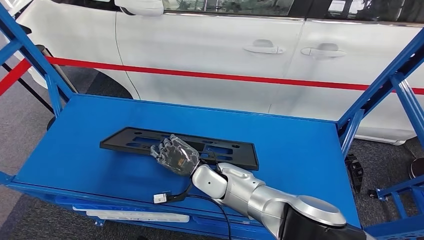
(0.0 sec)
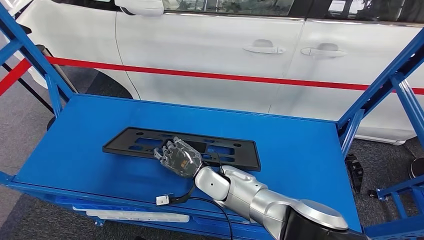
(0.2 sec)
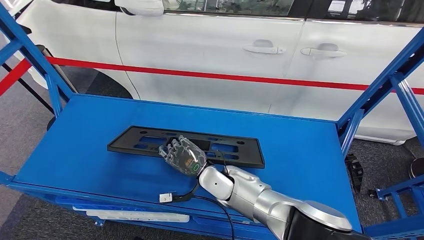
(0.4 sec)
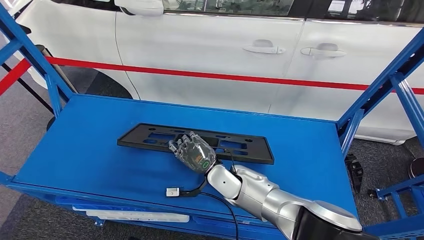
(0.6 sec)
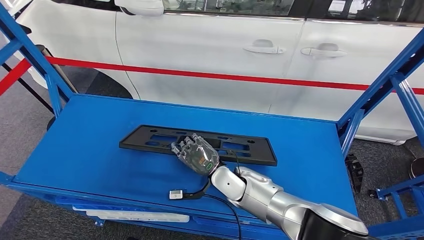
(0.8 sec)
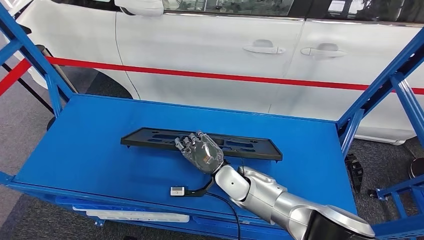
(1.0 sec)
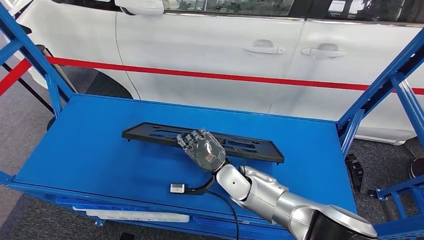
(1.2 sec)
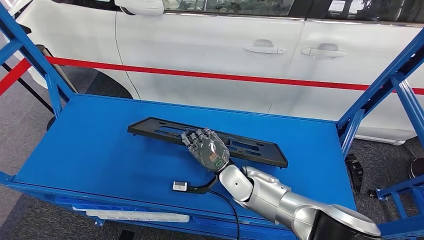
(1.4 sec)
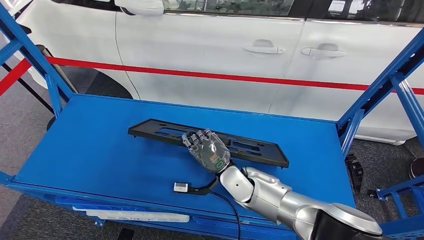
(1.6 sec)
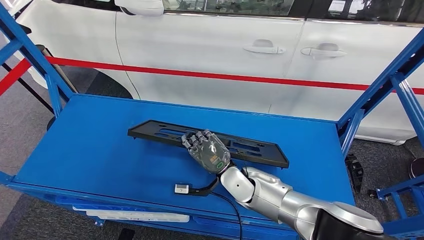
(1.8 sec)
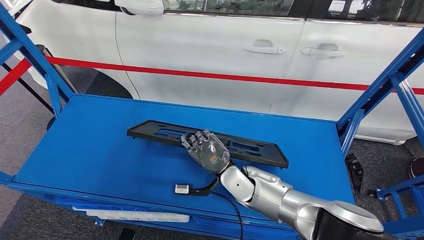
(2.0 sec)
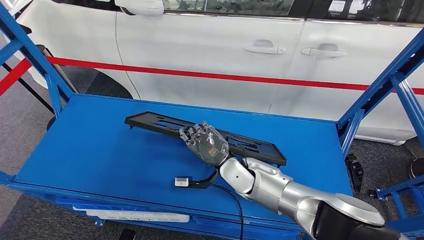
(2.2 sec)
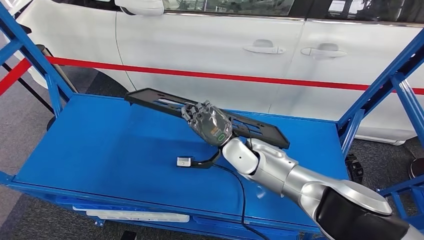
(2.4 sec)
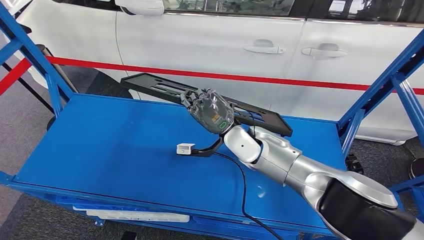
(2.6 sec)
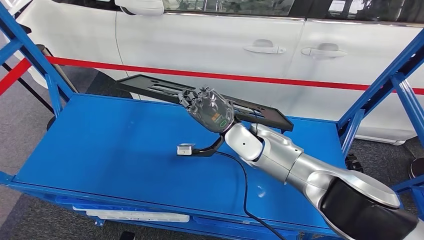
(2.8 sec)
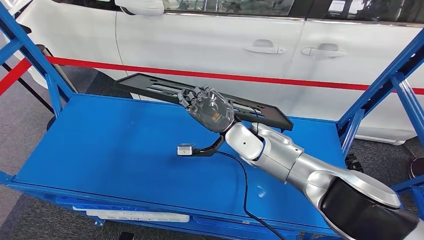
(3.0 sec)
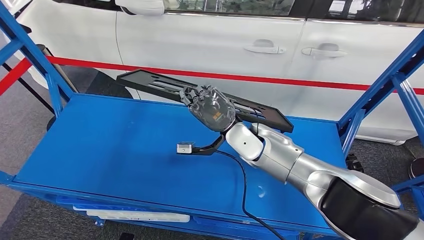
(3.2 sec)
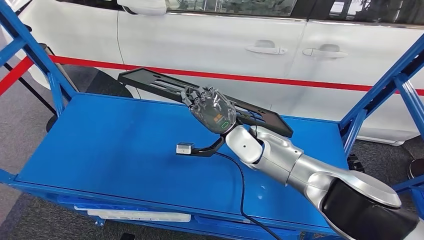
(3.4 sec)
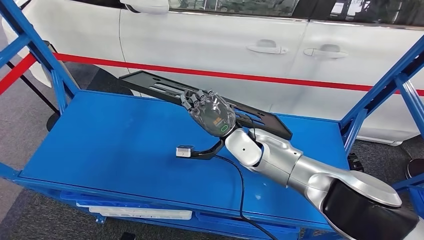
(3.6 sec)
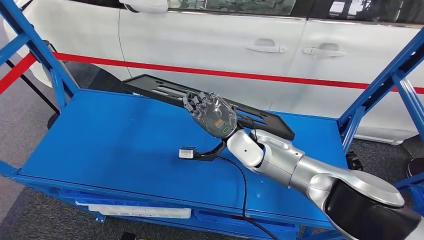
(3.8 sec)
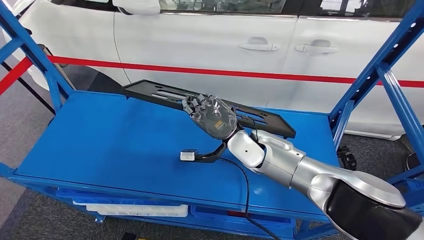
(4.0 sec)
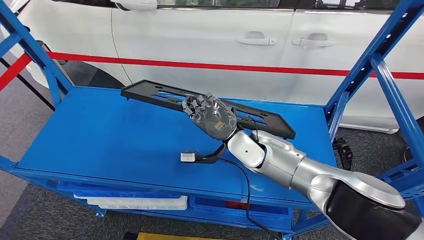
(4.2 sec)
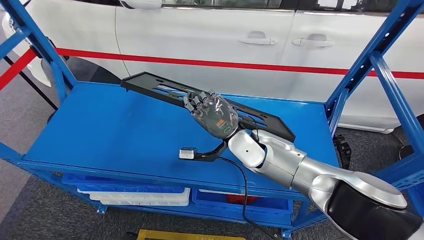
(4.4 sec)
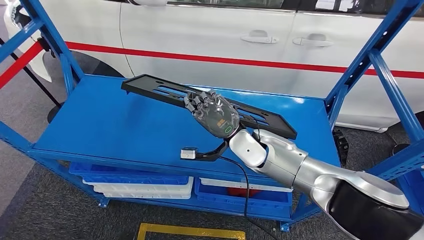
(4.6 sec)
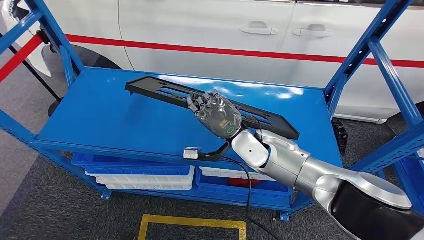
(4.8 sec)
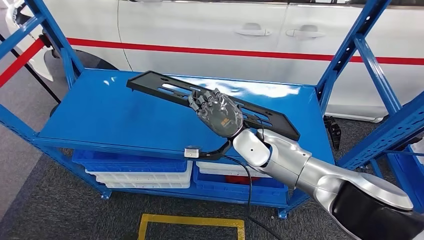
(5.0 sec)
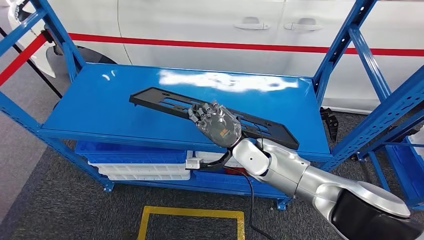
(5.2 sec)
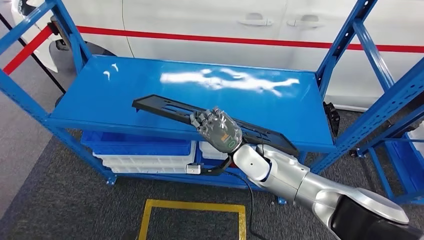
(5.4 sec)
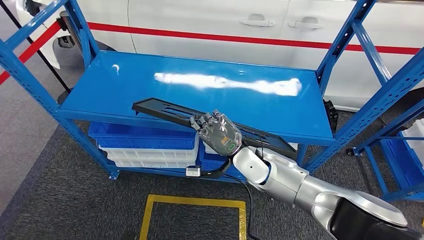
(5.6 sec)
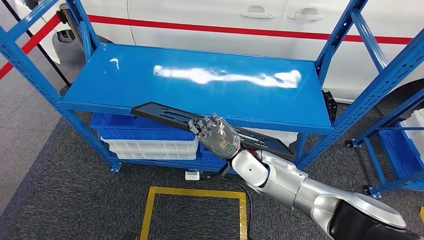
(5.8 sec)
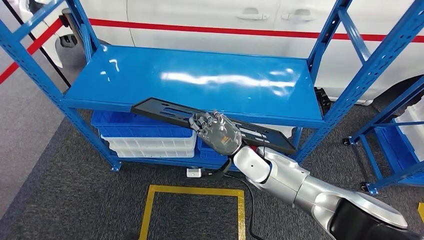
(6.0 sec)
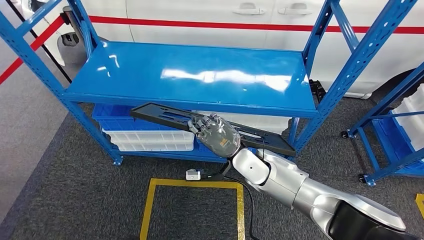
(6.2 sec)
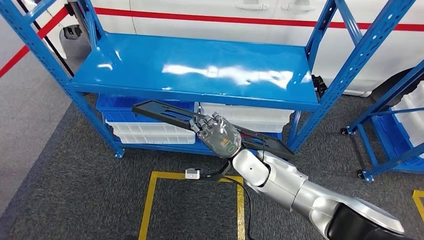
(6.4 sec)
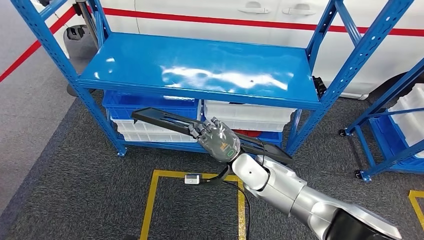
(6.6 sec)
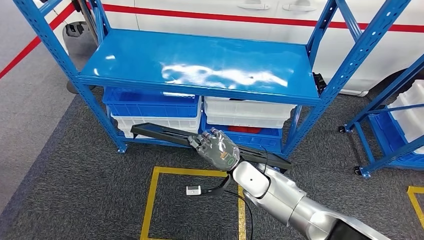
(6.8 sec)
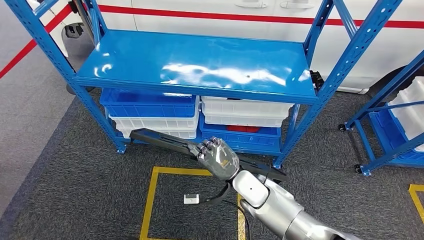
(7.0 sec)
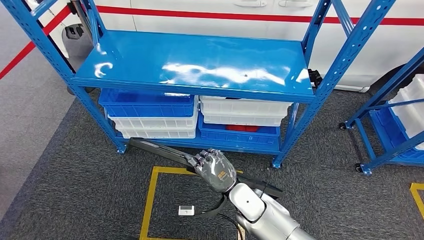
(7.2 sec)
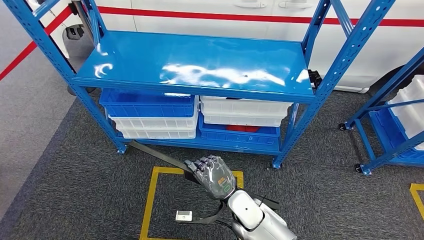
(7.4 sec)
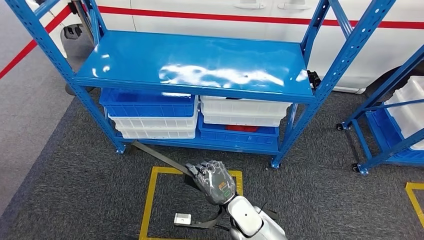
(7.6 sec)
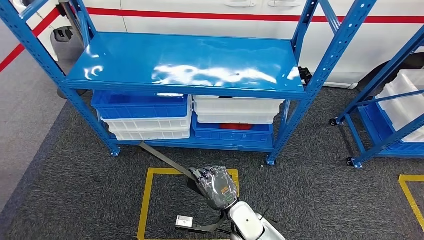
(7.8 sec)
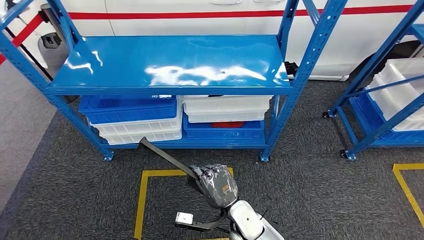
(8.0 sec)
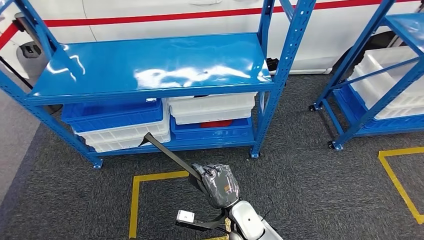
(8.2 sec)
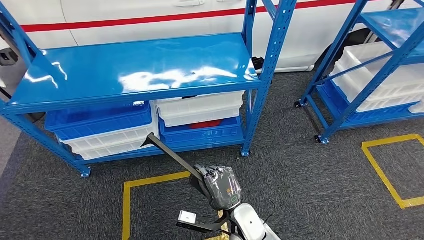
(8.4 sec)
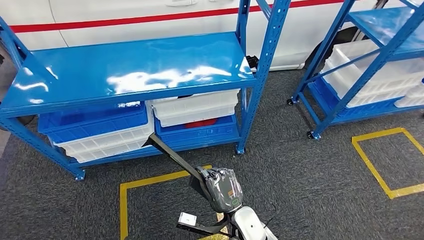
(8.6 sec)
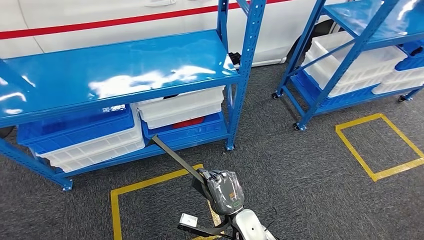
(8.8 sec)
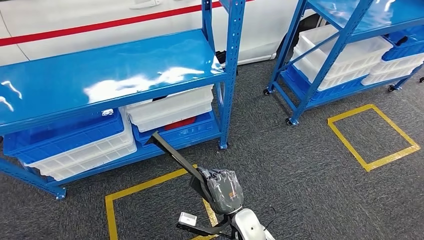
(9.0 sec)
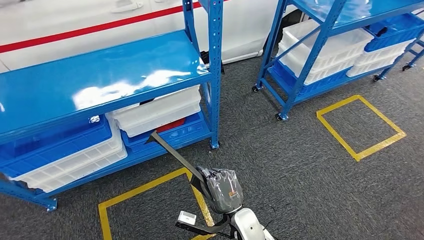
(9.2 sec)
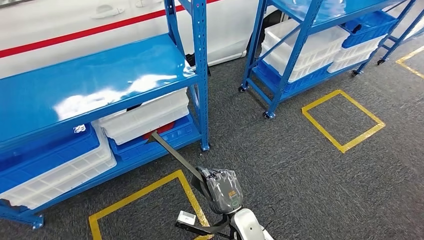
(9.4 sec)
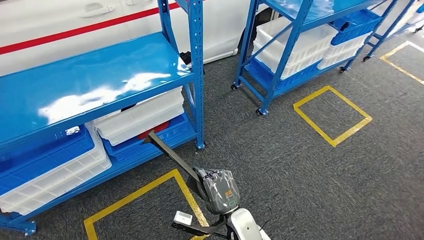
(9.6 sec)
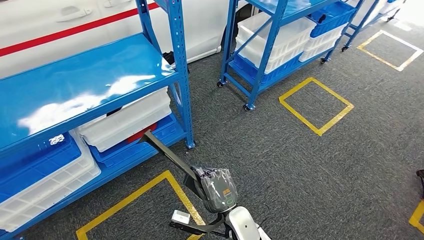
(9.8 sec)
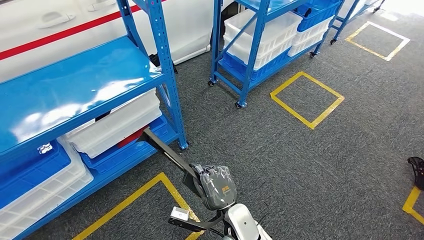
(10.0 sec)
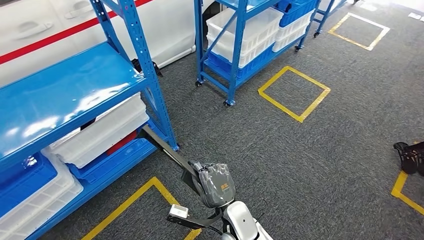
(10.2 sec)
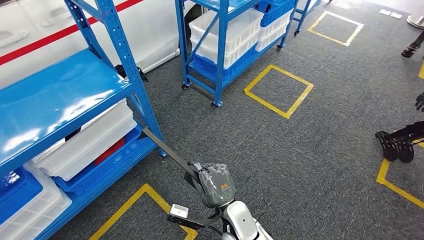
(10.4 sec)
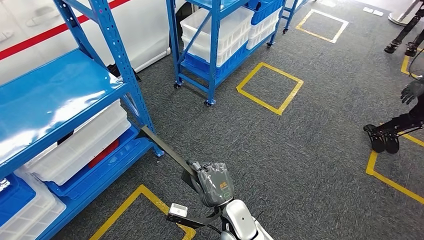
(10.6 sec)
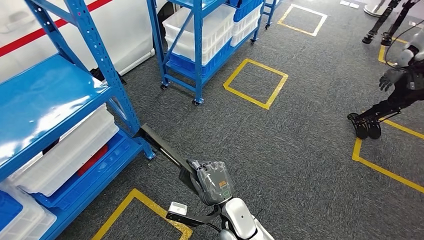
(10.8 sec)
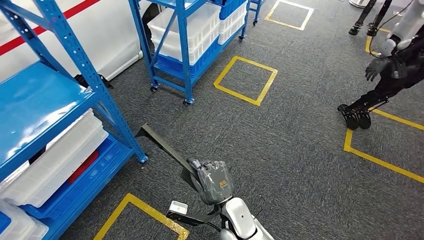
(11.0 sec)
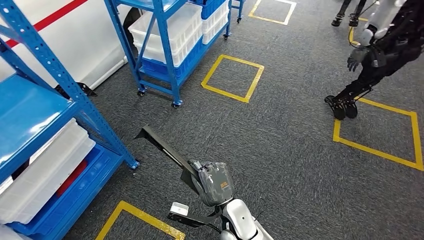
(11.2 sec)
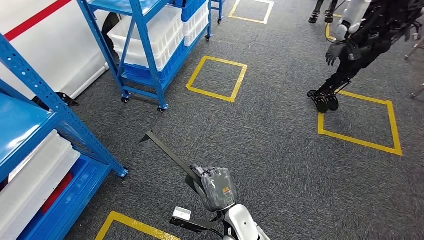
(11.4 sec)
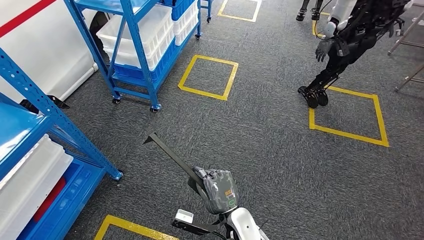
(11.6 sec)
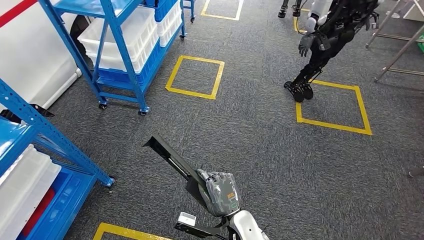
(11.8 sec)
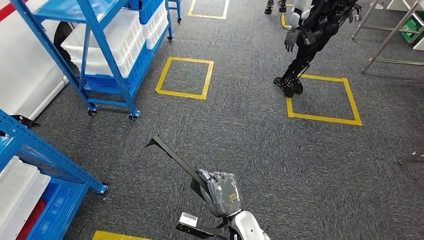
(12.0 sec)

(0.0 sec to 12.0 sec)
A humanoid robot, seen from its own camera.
Step, 0.0 sec - 2.2 sec: Pick up the large material from the shelf.
0.0 sec - 1.6 sec: The right hand shifts some 5 cm to the right.
1.6 sec - 3.0 sec: The right hand is displaced upward and forward by about 15 cm.

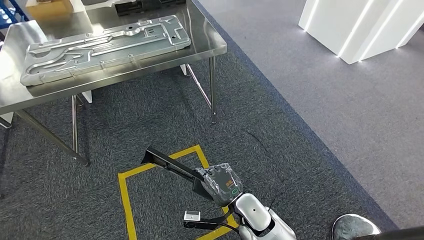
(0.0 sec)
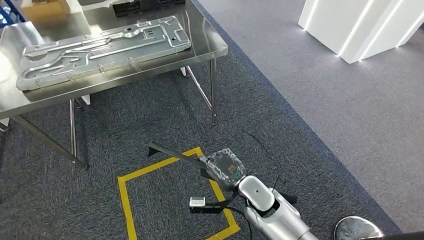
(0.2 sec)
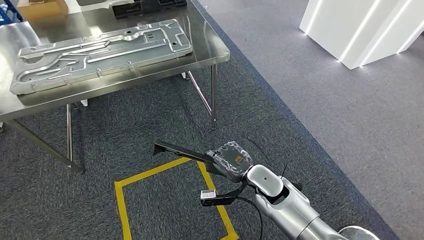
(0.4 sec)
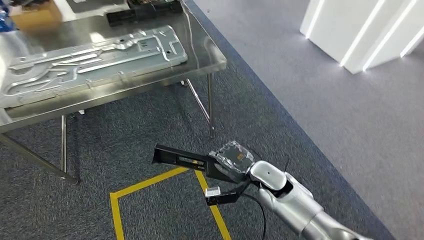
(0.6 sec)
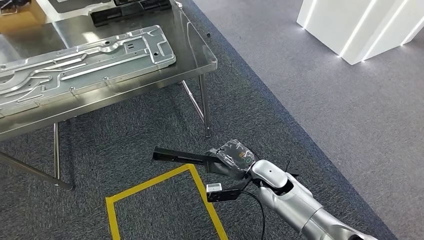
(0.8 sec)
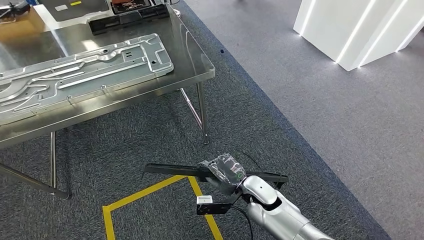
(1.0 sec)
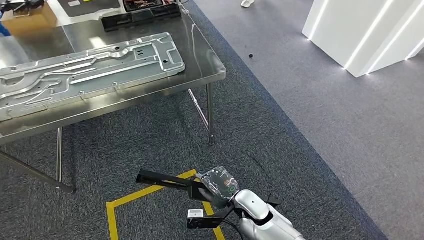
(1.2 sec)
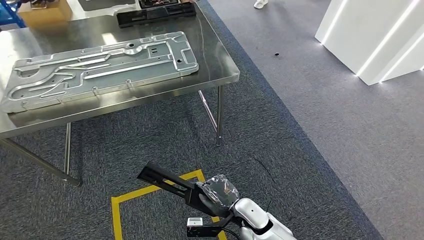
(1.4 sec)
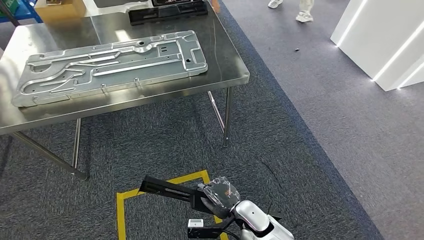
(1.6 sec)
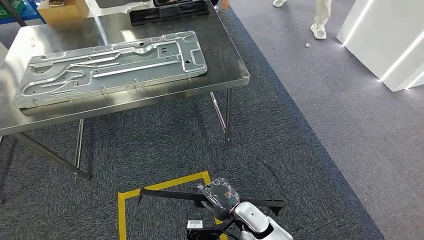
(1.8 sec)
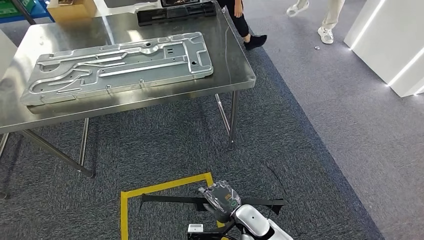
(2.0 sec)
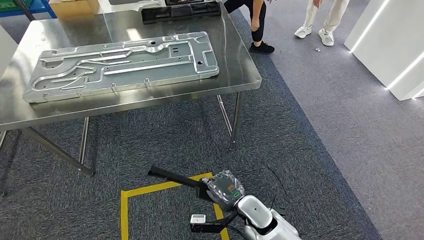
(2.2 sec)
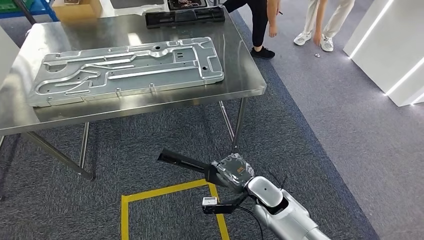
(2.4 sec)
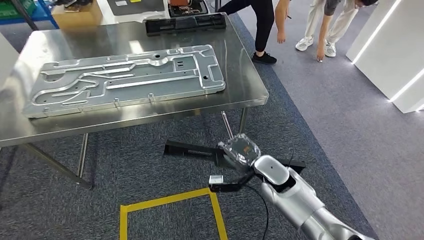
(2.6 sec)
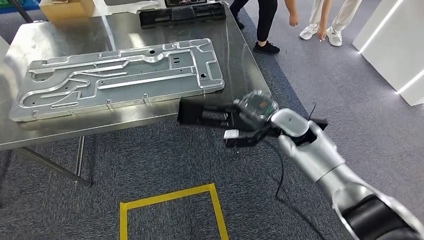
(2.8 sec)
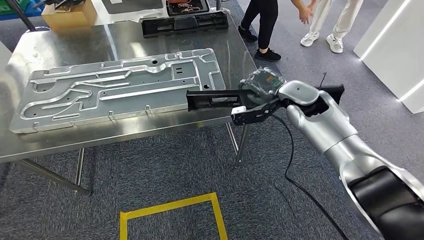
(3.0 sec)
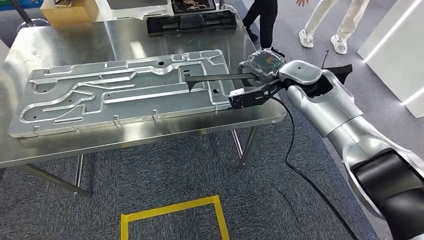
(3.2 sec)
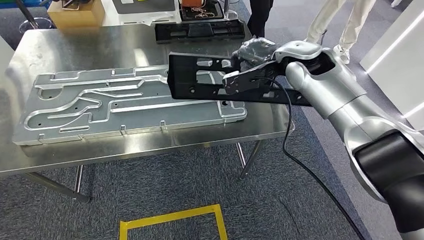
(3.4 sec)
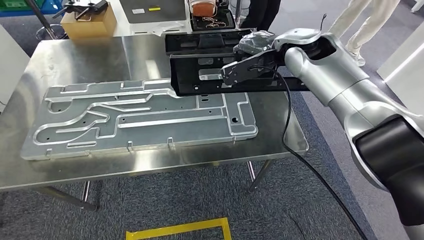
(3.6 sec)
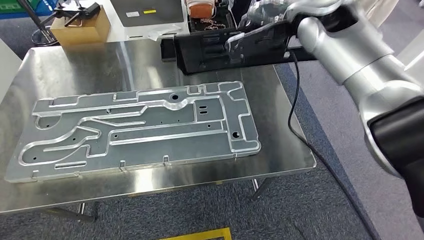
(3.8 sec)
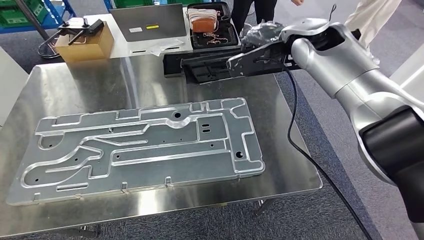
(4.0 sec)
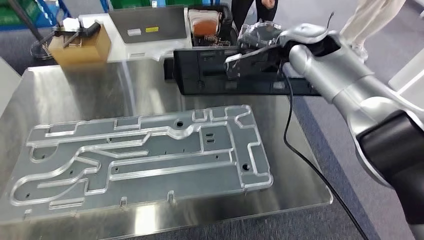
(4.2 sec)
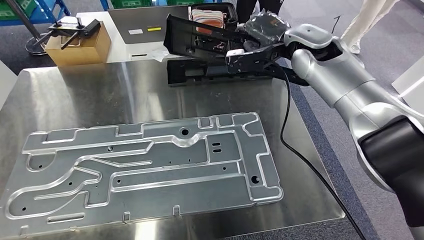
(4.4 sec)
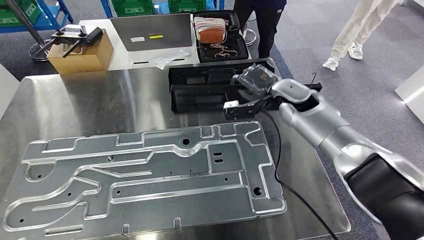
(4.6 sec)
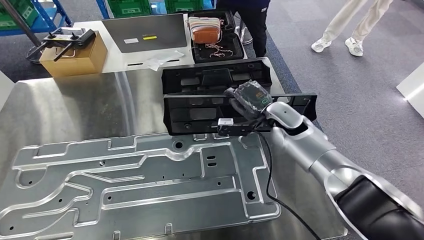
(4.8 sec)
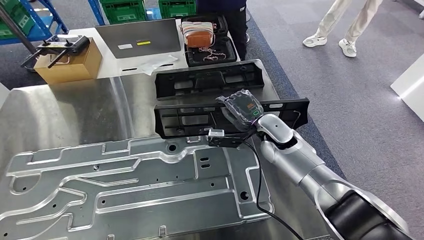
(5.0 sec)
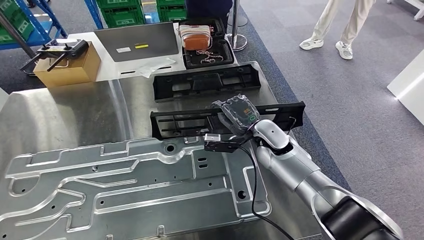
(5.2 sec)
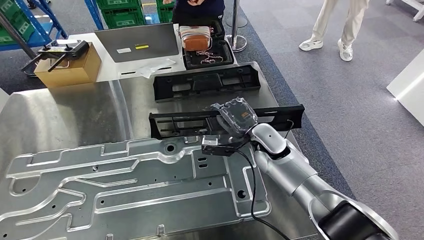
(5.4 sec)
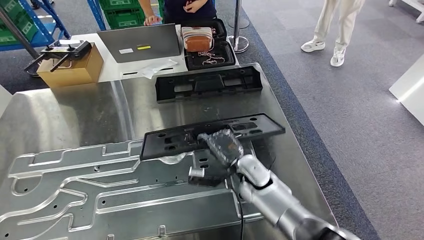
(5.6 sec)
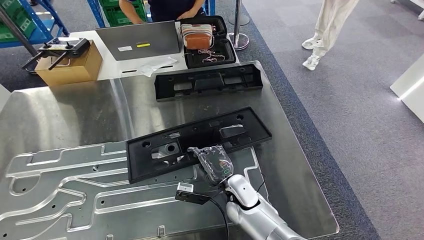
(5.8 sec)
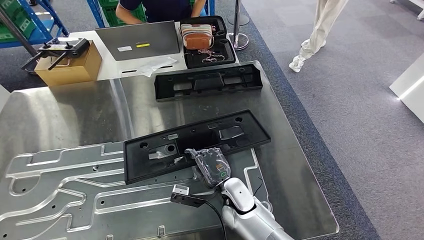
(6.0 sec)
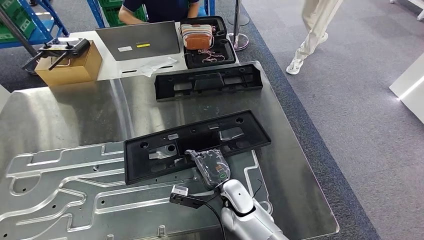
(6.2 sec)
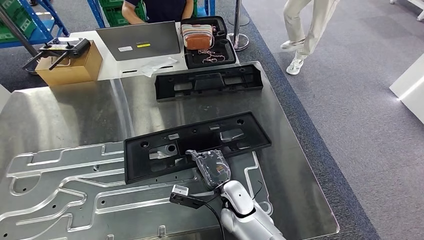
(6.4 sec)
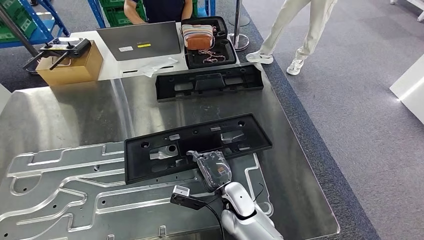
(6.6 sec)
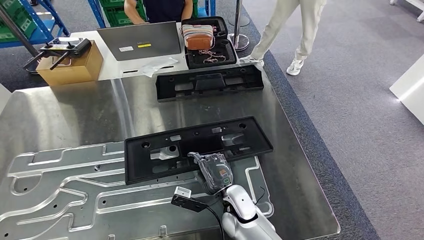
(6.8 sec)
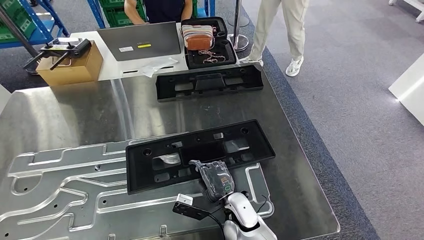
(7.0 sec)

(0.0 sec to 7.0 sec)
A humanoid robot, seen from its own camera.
Step, 0.0 sec - 5.6 sec: Move the large material to the front of the workbench.
